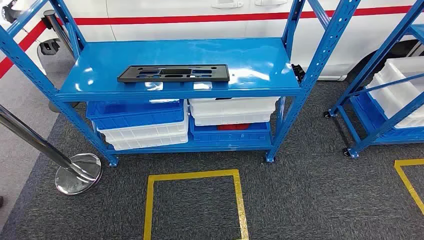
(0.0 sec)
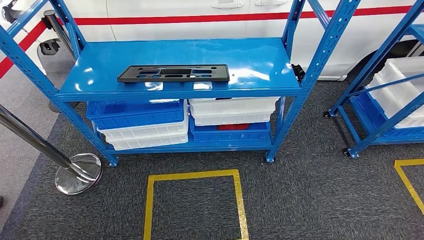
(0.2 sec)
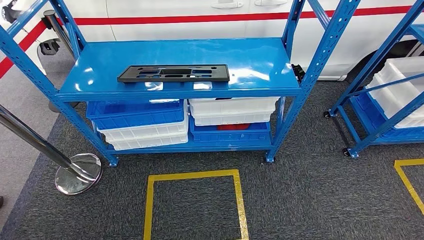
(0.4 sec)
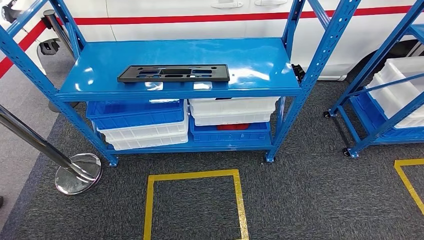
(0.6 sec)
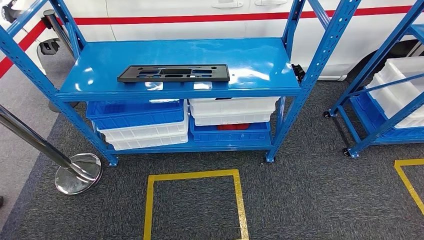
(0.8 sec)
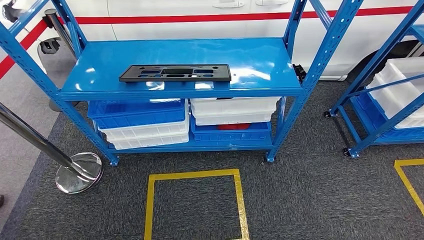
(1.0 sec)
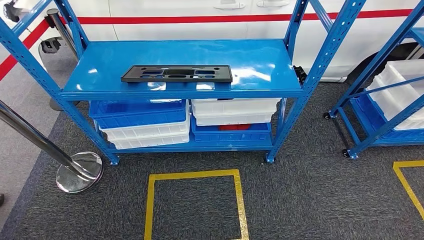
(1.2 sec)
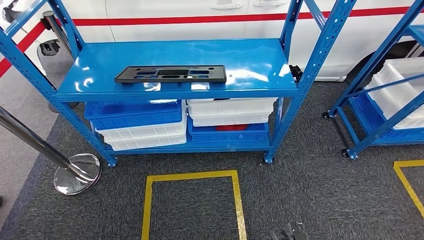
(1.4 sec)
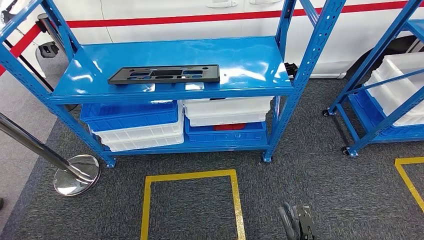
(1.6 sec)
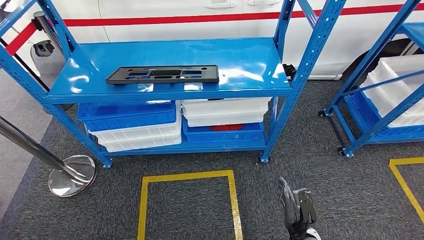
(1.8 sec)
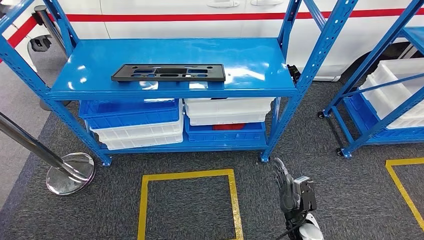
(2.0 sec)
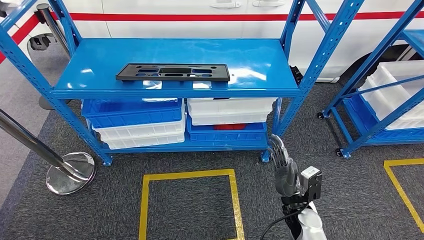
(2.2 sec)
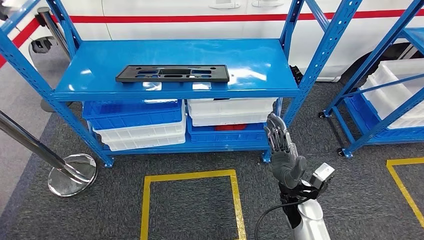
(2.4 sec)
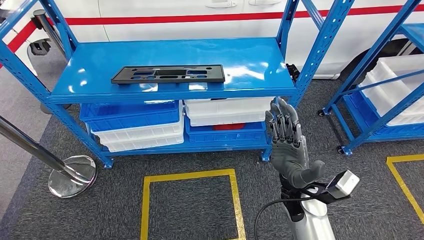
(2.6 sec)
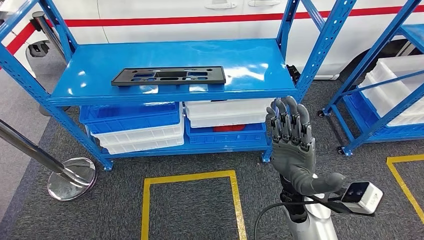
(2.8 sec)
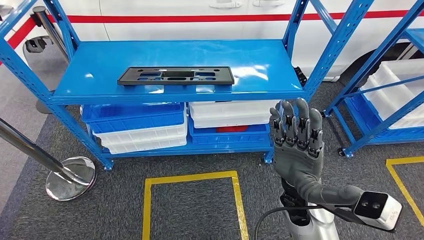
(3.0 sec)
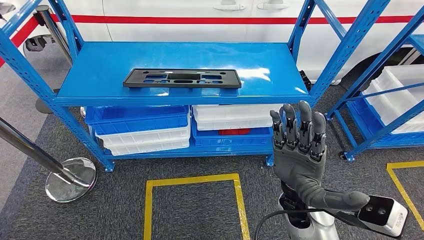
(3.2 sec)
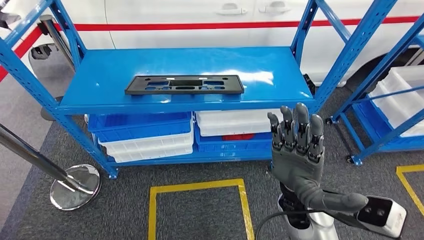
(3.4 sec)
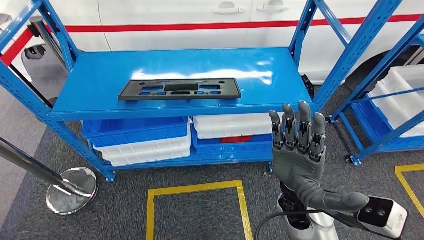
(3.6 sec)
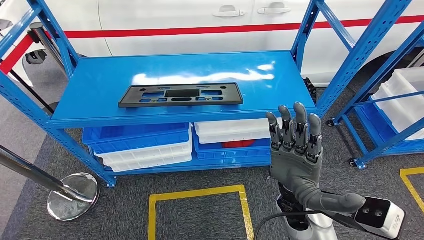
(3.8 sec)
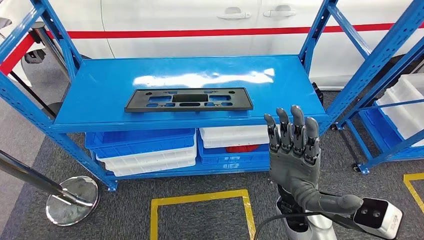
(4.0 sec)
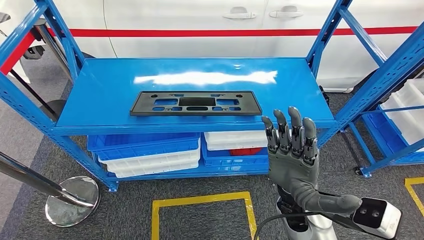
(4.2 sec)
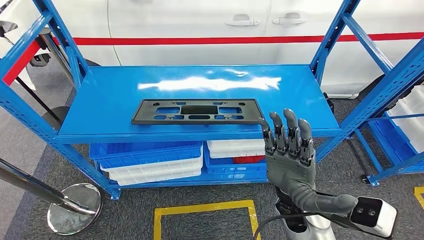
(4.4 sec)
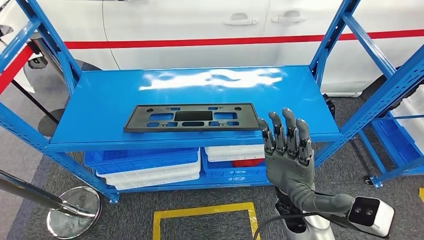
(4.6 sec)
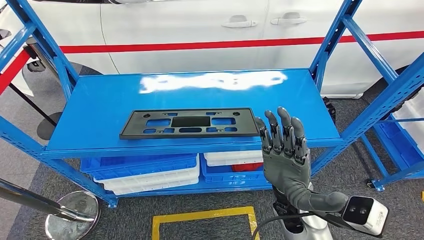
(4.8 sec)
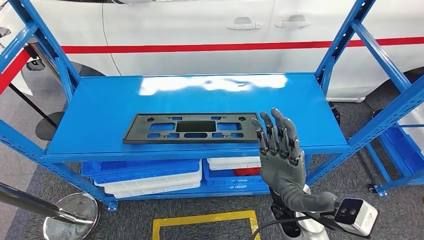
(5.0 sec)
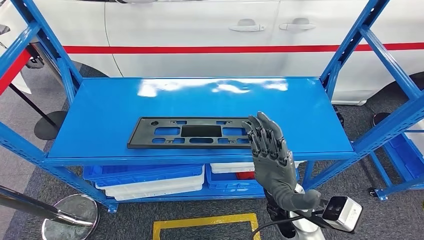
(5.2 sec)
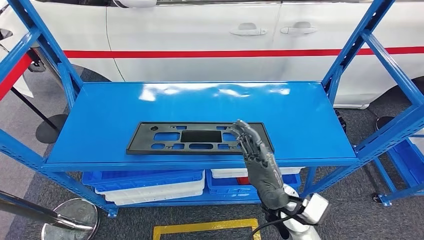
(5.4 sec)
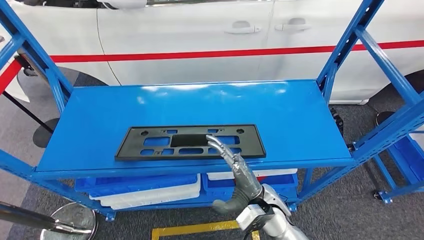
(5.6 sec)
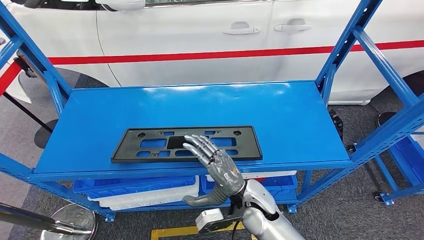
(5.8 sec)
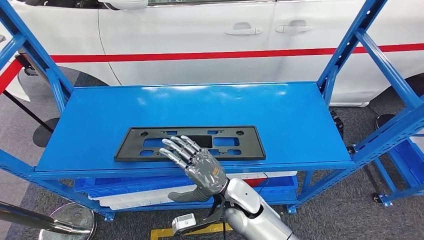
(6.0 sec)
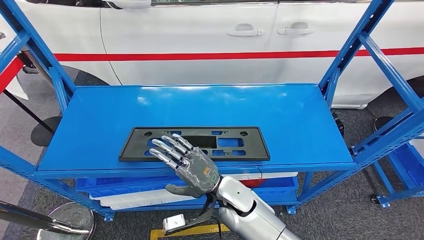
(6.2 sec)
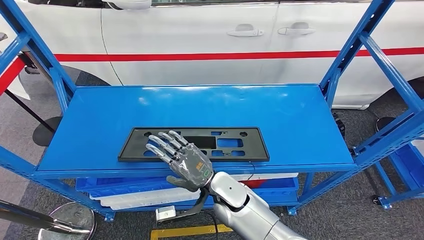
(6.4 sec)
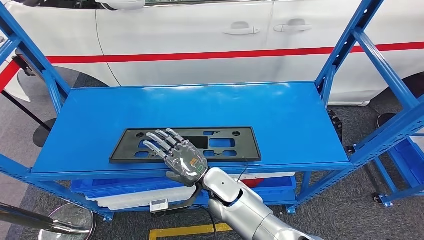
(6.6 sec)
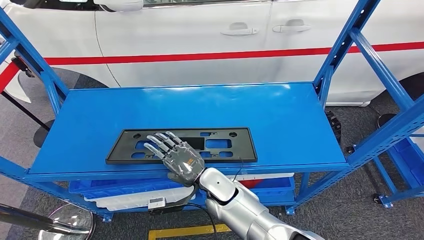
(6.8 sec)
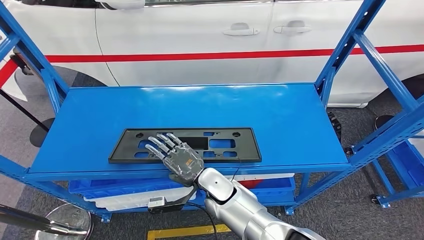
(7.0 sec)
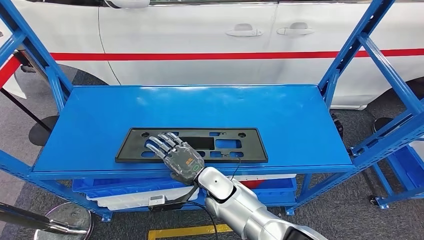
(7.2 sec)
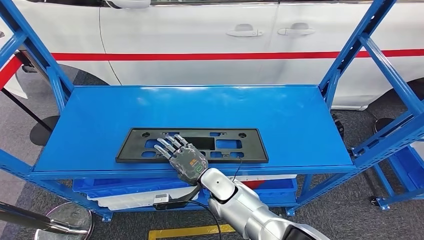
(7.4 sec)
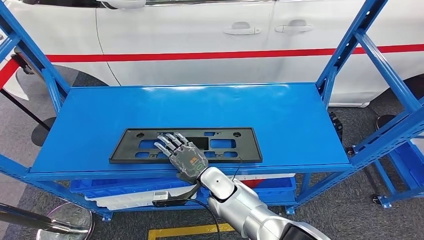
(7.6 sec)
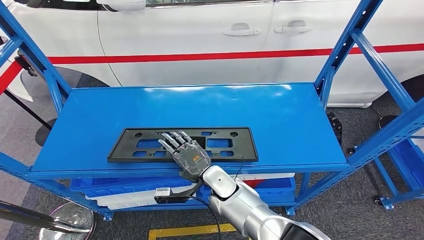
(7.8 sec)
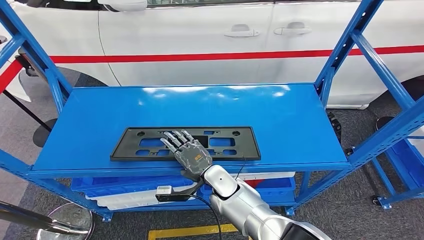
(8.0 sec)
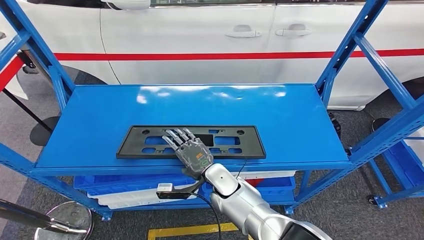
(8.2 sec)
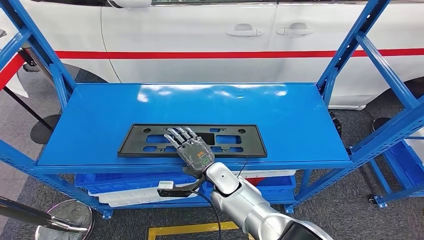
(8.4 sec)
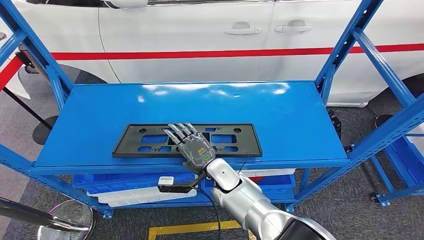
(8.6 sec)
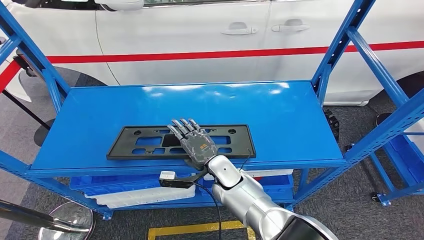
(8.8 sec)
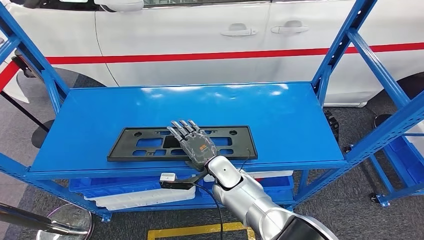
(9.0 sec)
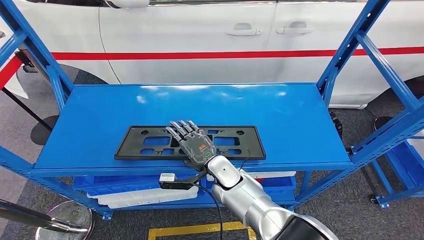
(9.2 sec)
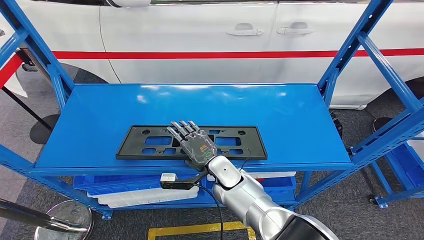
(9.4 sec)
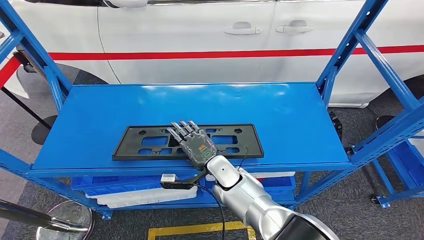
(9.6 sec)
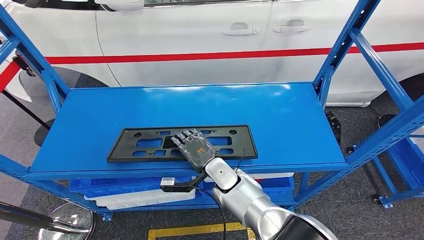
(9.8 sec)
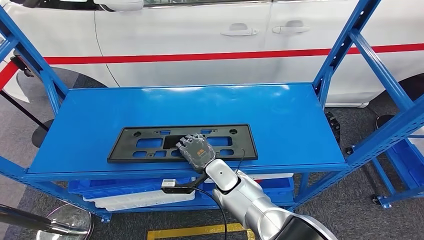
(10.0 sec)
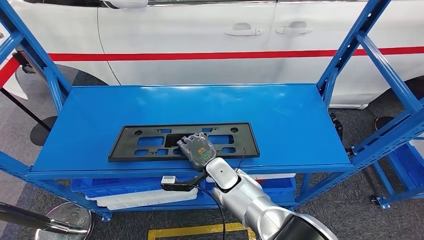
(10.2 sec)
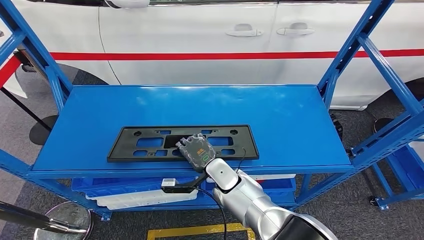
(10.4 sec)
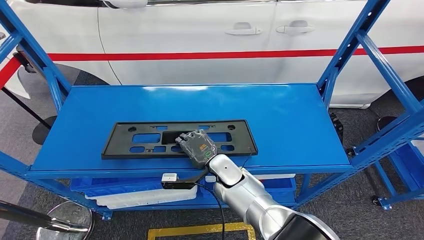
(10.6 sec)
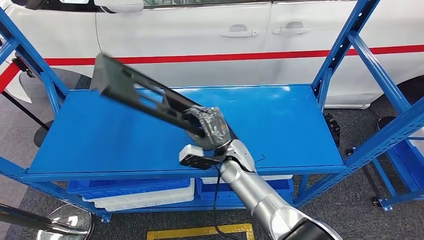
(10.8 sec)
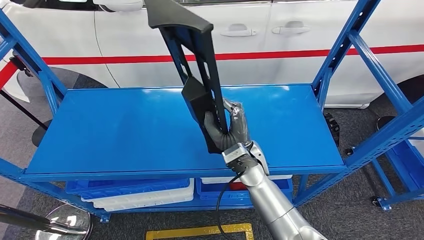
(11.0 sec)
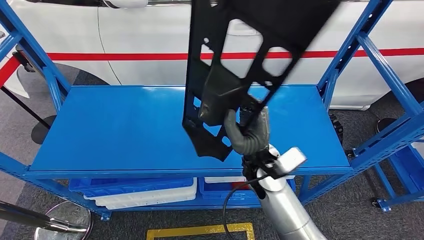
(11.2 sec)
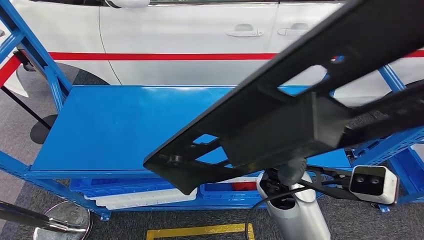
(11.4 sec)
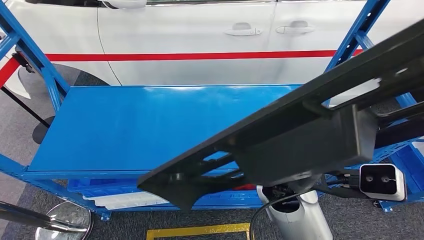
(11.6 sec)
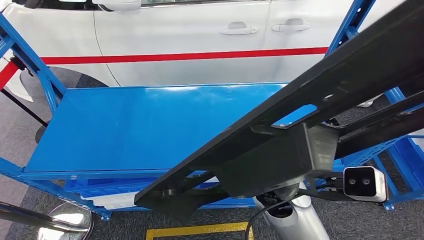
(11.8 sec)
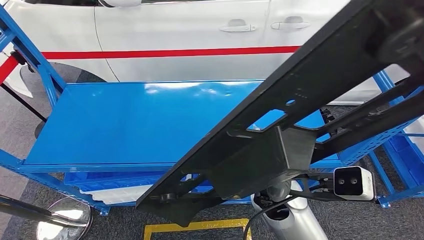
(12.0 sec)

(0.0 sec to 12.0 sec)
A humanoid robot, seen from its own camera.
Step, 0.0 sec - 10.6 sec: Pick up the large material from the shelf.
6.0 sec - 7.6 sec: The right hand travels forward by approximately 5 cm.
7.6 sec - 9.0 sec: The hands make only small movements.

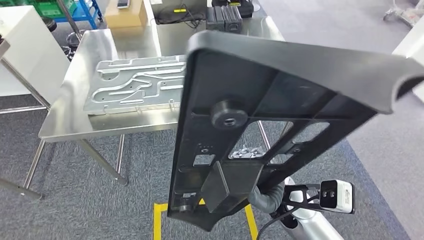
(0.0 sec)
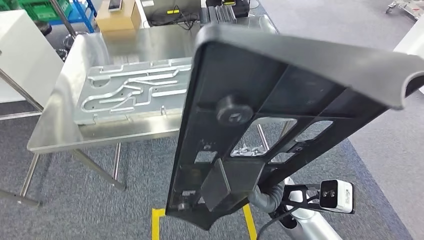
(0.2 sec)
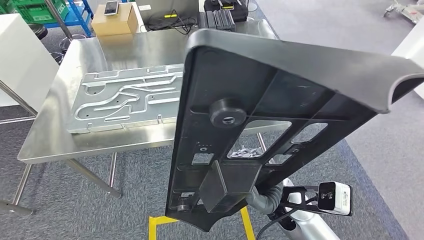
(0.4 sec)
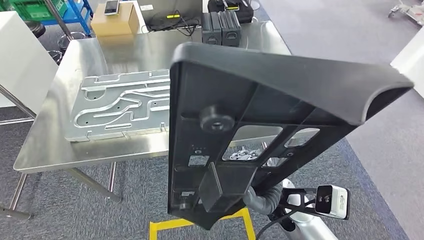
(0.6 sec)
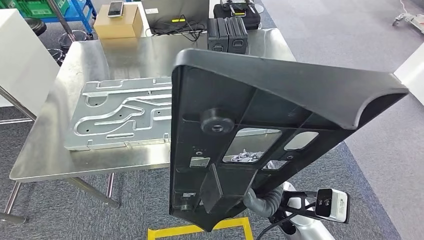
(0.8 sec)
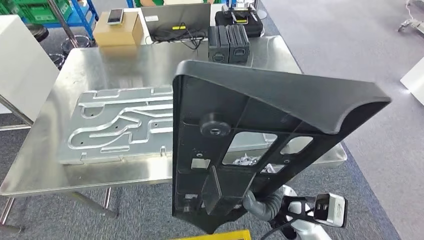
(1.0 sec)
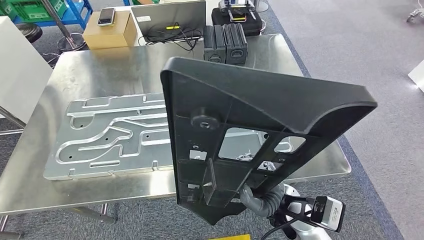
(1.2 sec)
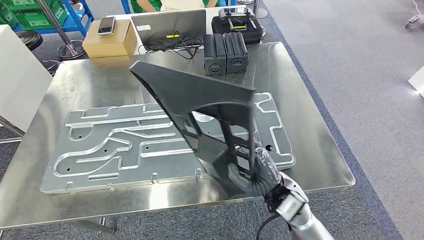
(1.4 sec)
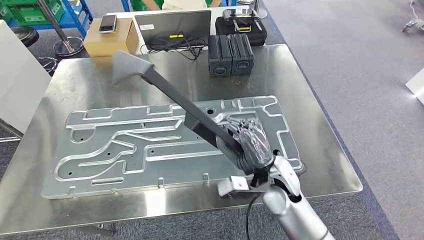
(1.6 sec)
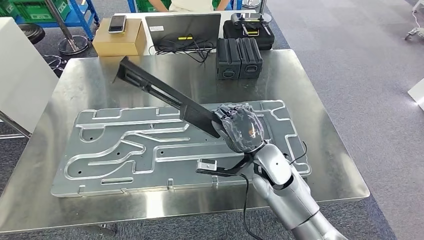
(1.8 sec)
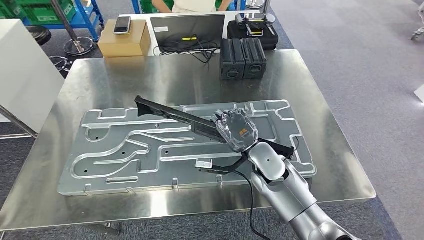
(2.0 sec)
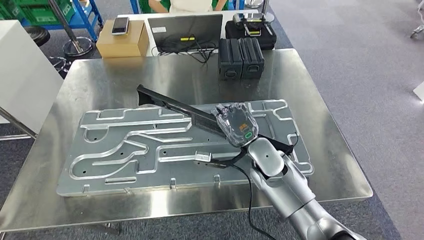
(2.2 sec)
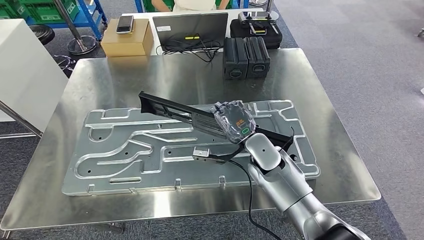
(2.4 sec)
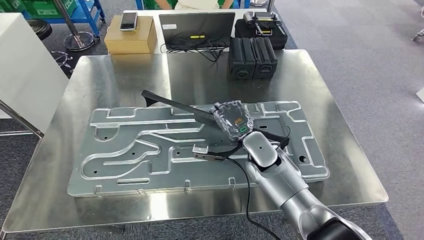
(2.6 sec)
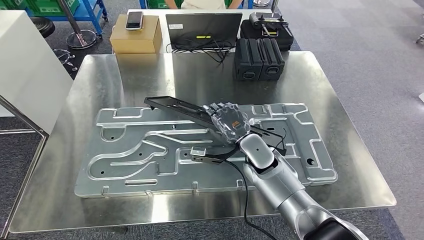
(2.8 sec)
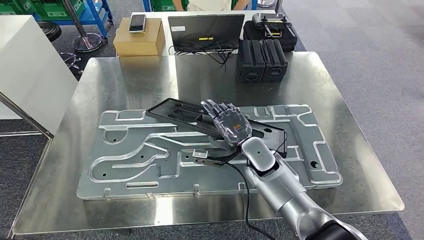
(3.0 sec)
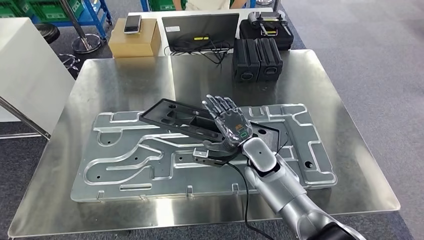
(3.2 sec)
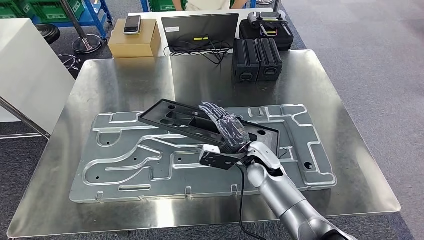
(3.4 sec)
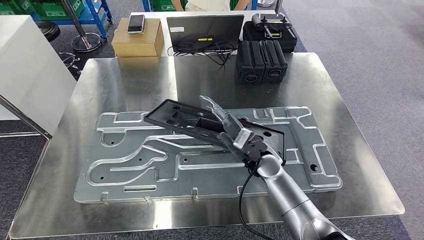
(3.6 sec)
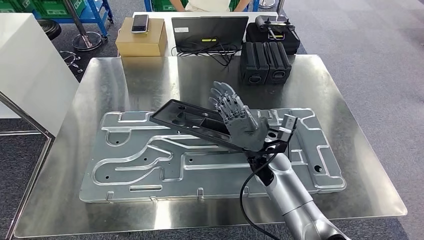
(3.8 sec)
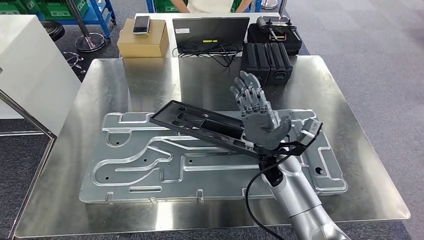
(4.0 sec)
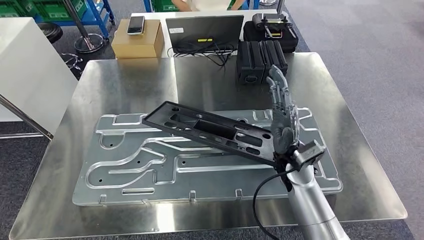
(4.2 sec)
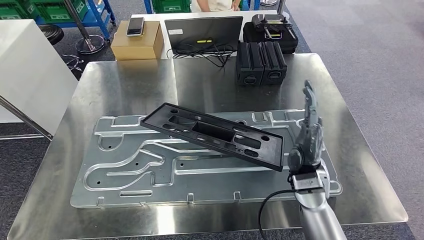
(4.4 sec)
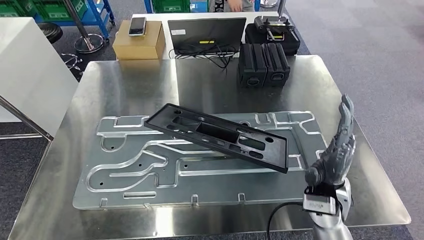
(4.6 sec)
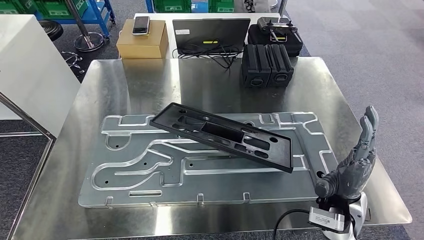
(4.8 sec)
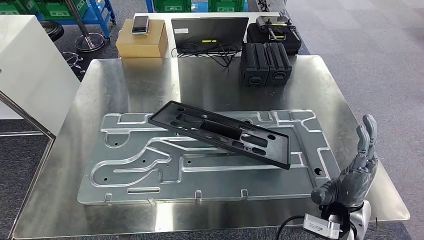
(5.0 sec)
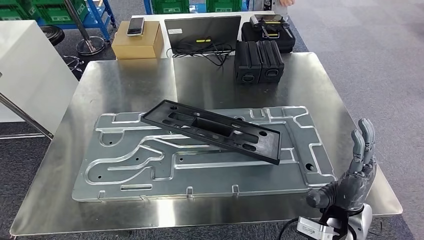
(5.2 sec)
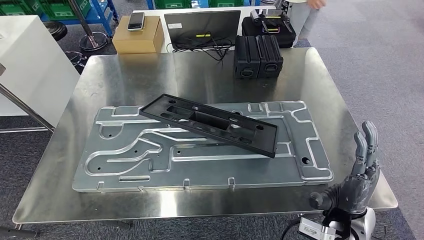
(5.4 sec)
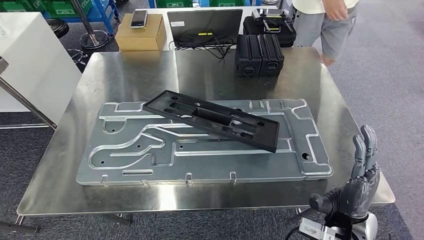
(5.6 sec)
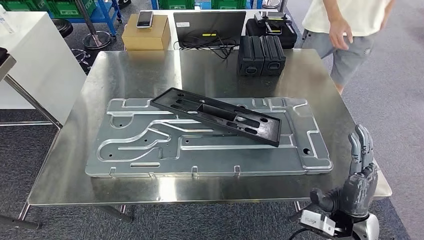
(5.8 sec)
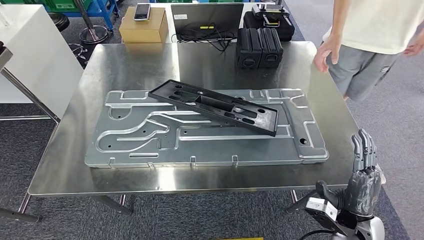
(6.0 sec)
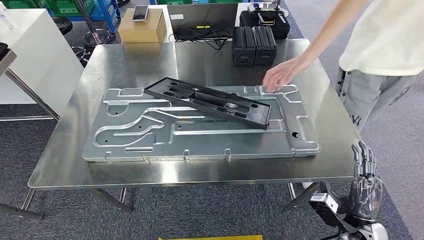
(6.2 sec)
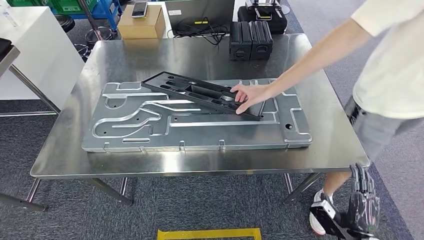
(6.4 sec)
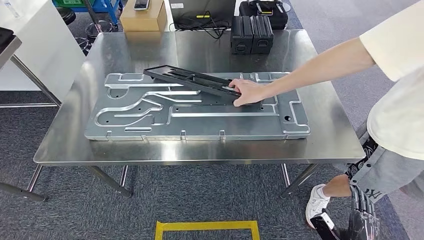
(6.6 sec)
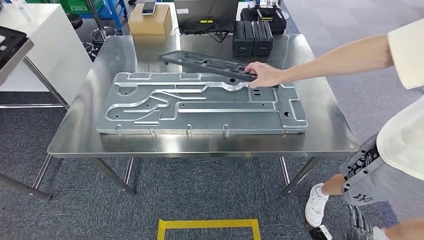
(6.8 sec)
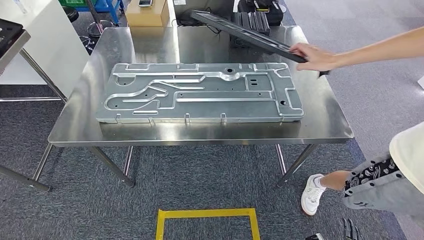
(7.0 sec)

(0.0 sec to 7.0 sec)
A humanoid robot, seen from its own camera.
Step, 3.6 sec - 6.0 sec: Insert the large material into the corresponding slot on the workbench.
